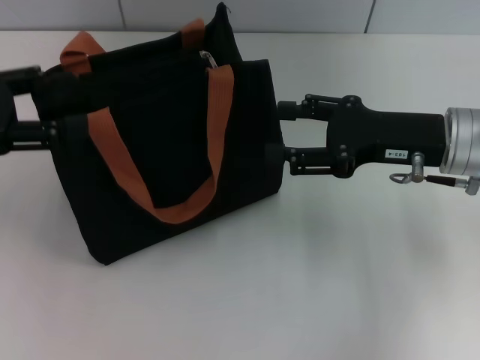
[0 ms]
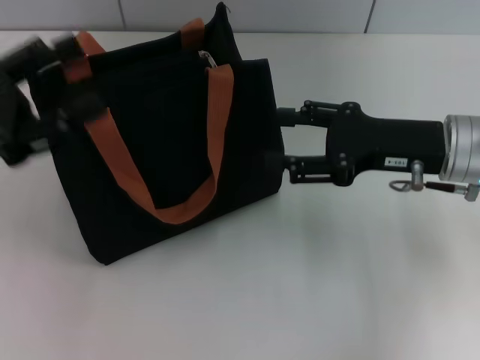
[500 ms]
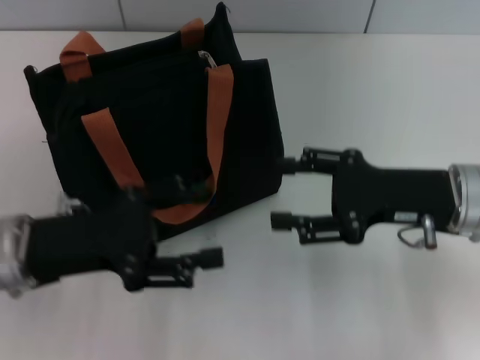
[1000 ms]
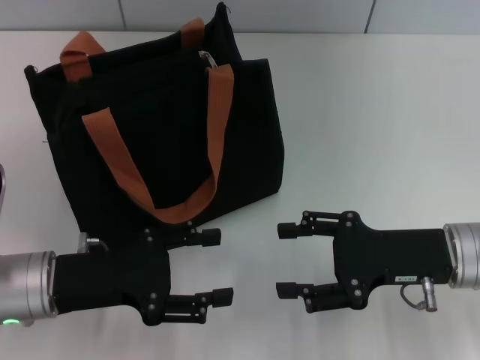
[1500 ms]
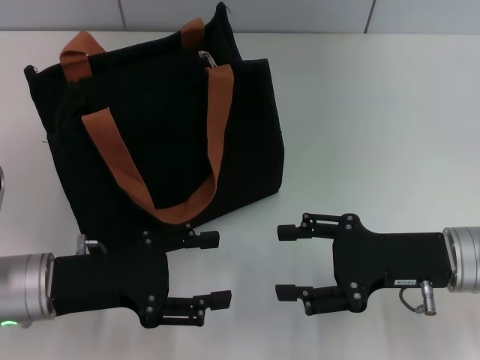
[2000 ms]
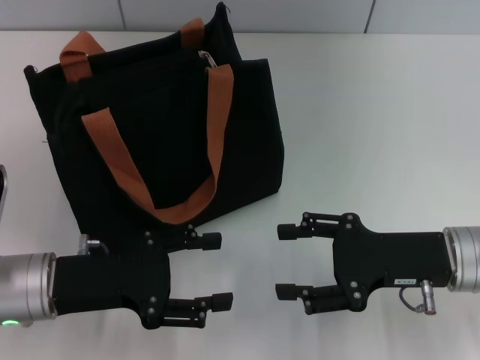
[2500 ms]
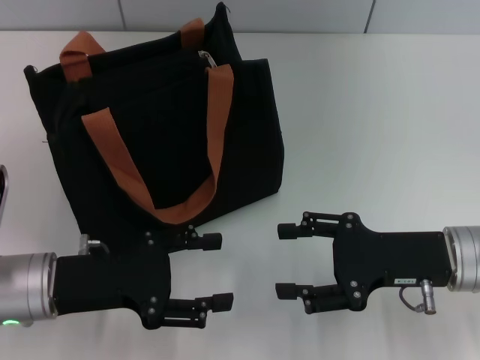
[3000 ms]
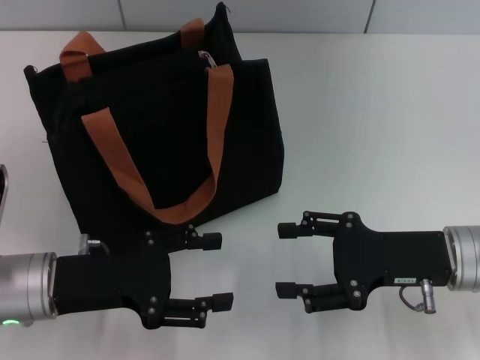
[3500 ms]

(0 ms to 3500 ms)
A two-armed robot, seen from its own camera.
0 ms - 2000 ms: The left gripper goes some 20 cm downward, to the right and backward. Meanwhile the right gripper heads backward and downward, covering approximately 10 cm.
2000 ms - 3500 ms: Neither gripper changes place.
